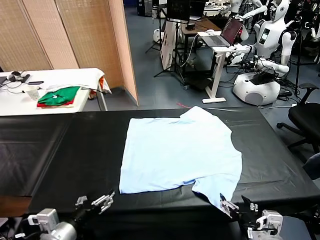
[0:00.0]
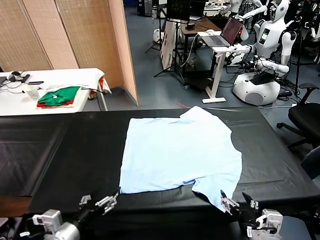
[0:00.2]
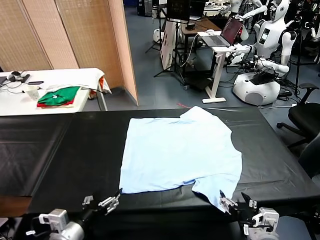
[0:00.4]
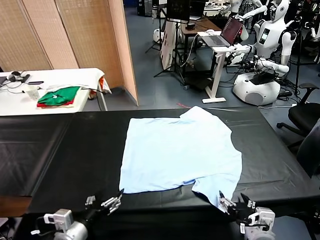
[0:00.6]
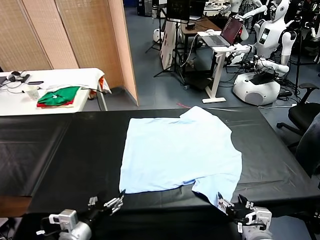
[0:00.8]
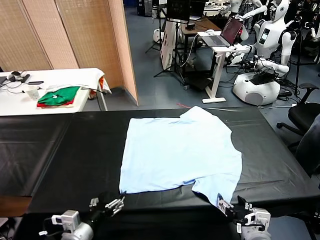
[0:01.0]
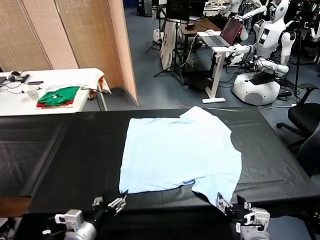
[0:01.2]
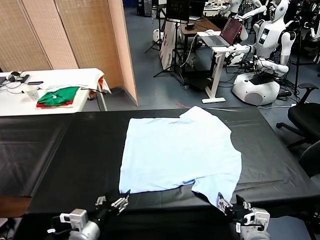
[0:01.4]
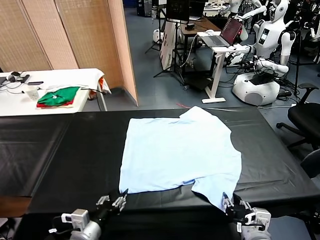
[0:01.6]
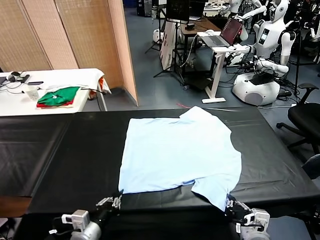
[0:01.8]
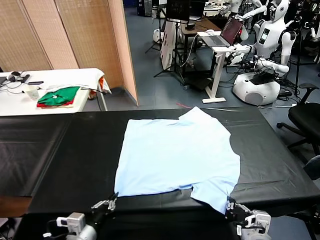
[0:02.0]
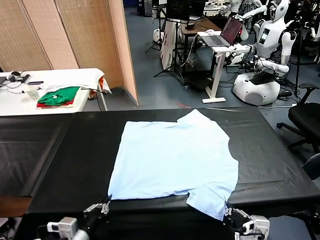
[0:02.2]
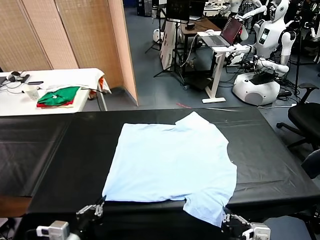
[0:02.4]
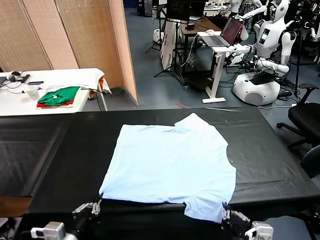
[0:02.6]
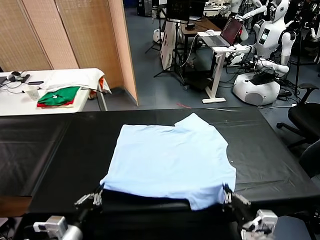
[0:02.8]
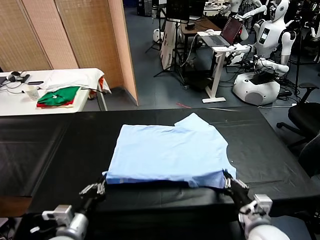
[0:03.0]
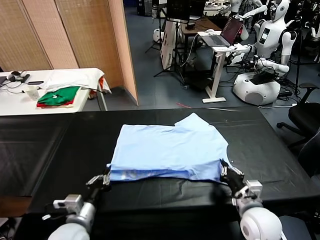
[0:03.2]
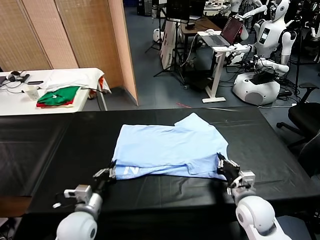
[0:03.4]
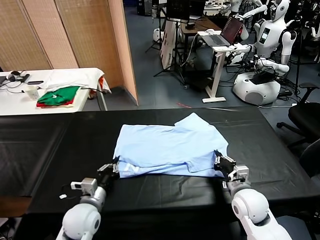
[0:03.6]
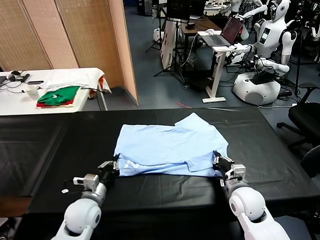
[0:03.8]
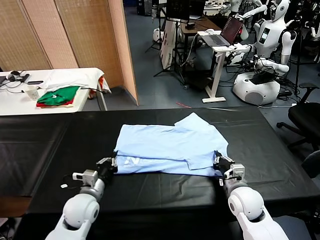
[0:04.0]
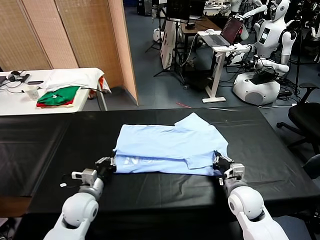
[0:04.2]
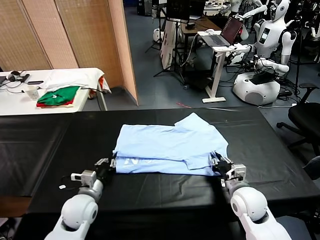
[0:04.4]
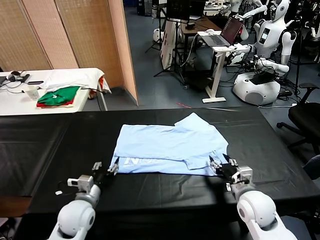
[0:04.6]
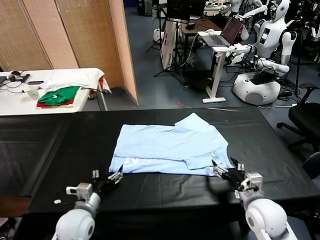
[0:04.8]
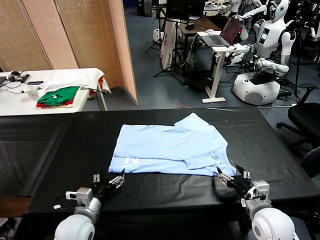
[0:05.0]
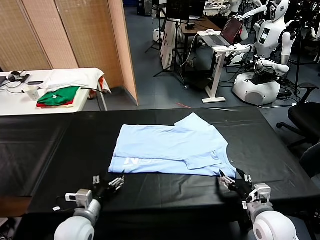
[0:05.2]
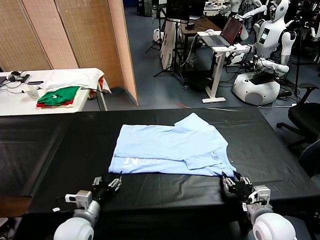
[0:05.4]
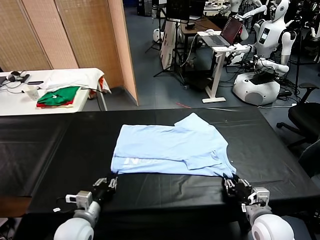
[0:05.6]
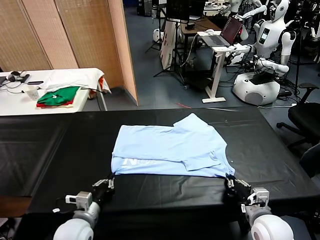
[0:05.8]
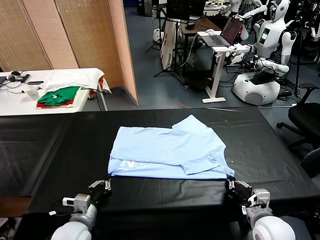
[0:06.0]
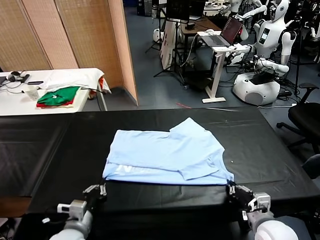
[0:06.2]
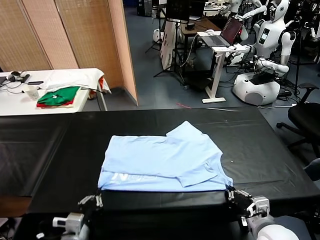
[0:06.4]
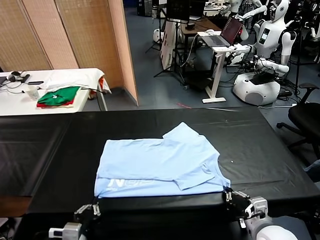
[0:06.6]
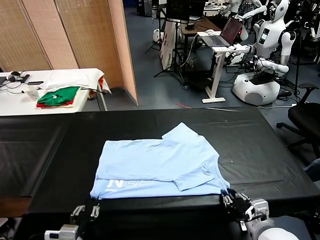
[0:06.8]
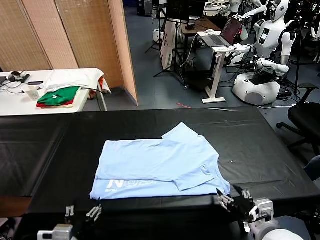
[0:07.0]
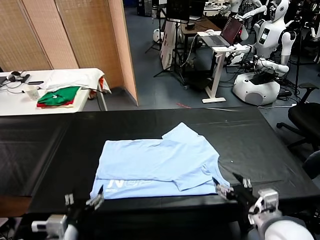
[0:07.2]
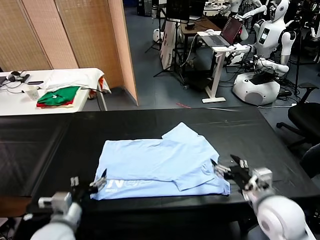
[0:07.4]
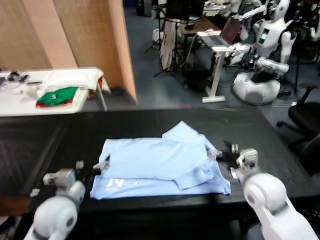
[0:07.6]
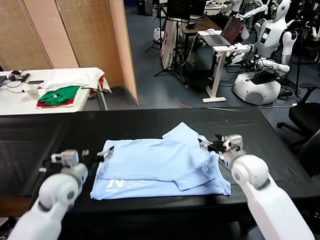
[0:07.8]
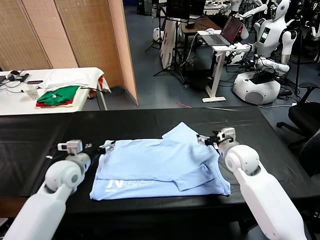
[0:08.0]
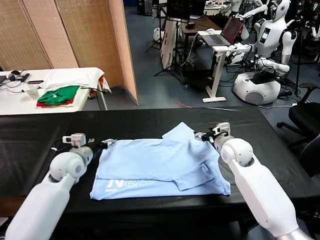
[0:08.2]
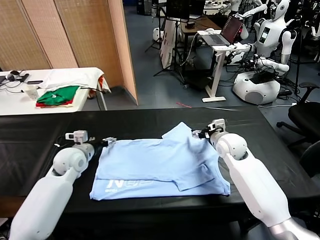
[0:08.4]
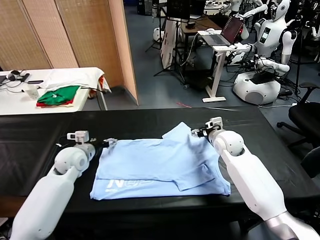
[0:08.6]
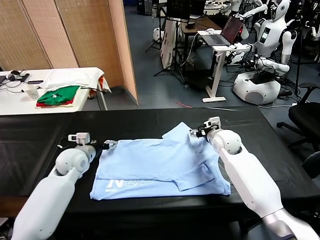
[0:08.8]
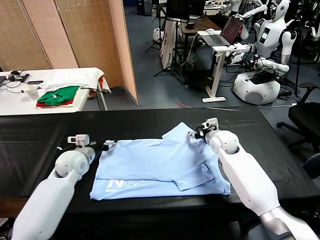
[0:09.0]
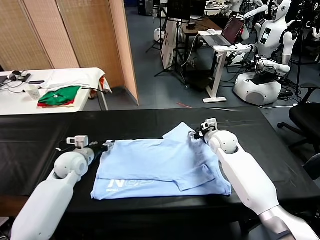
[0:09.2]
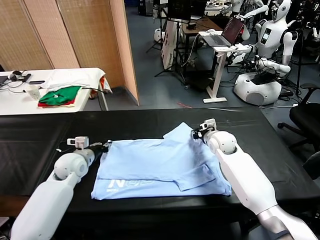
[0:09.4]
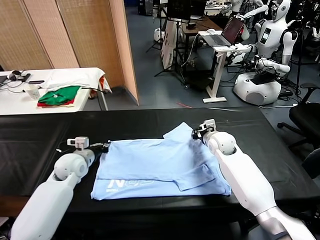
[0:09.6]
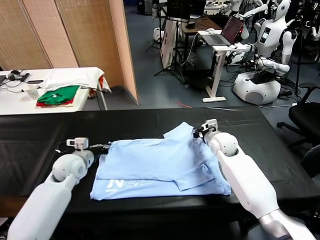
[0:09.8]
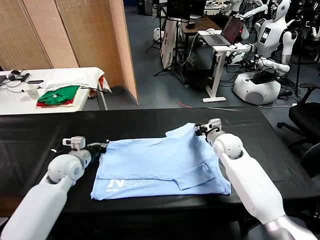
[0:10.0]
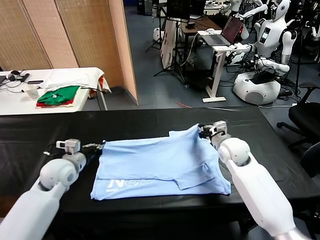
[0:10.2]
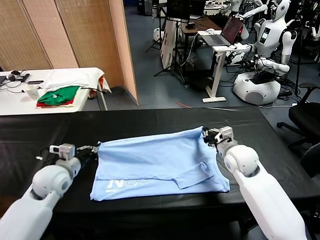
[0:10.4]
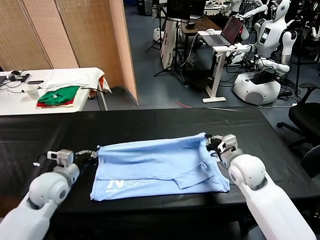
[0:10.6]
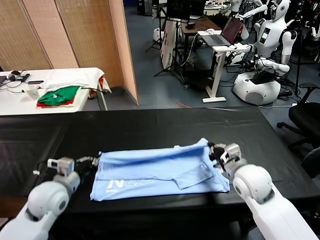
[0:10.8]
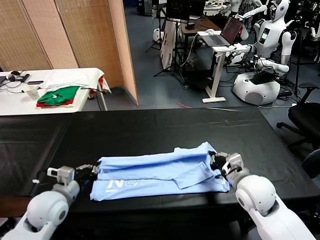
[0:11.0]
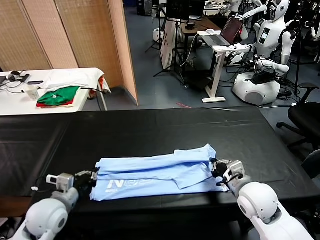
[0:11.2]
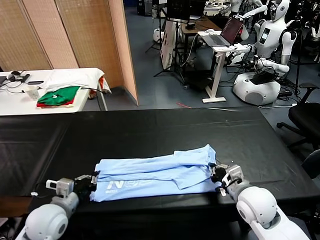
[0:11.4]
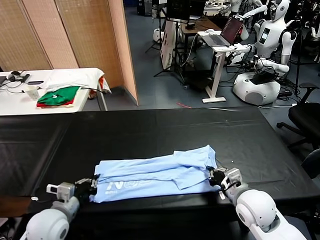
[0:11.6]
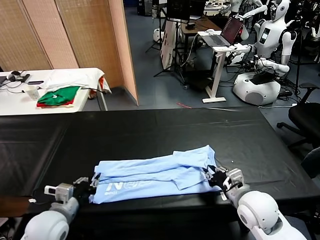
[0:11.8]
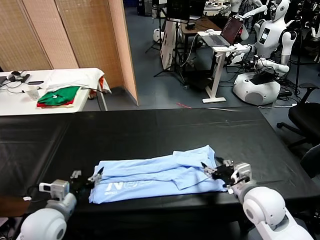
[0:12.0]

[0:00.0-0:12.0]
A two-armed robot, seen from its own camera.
Task of the whole recording: fold and organize the clothes.
Step, 0.0 to 1.8 s: use both grippers simultaneously to clamp the lower edge of the clothing fabric.
Step, 2.0 to 4.4 s: use both grippers to drag the lower edge of the fabric forward and fold it over the upper edge.
Step, 4.6 to 6.8 s: Drag the clothes downward with both gripper.
Step, 7.2 to 9.4 s: use both grippers simultaneously to clamp the upper edge of the clothing fabric.
Step, 9.6 to 11.8 s: use both grippers to drag the upper edge of the fabric backward and fold it over the lower edge.
1.6 to 3.0 s: The right gripper shifts some 10 cm forward.
3.0 to 4.4 s: The left gripper moves forward, roughly 10 cm, and opens, while the right gripper opens its fingers.
4.4 to 6.0 s: Both grippers travel together backward, approximately 10 cm. The right gripper closes; the left gripper closes its fingers.
6.0 to 7.6 s: The right gripper moves forward and upward, approximately 15 cm, and opens up. The left gripper heads upward and forward, covering some 10 cm, and opens up.
7.6 to 9.0 s: Both grippers move forward, approximately 15 cm.
9.0 to 10.4 s: The two grippers go some 10 cm backward. The right gripper closes up. Meanwhile the left gripper closes up.
10.4 to 12.0 s: The grippers both shift backward by about 10 cm. The right gripper opens its fingers. Meanwhile the left gripper opens its fingers.

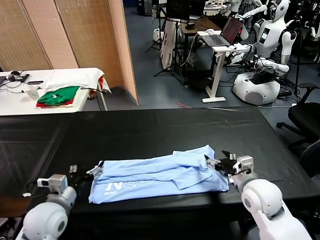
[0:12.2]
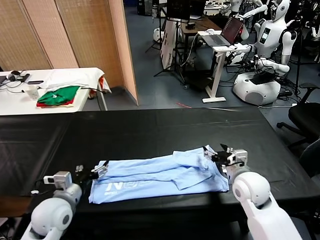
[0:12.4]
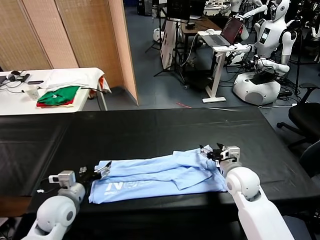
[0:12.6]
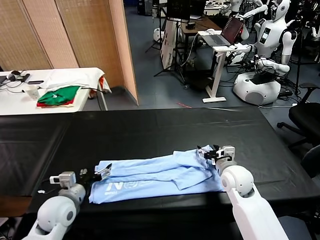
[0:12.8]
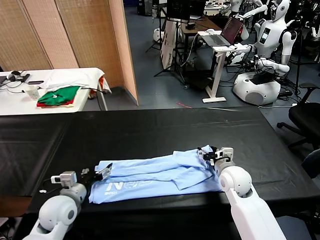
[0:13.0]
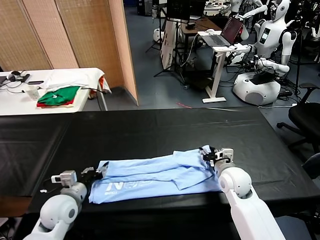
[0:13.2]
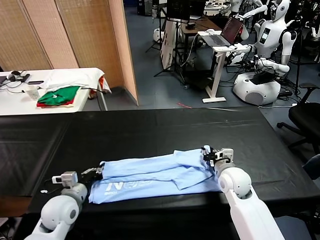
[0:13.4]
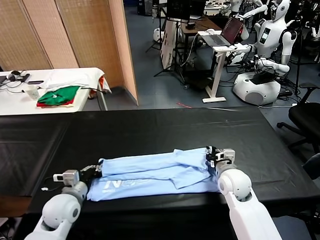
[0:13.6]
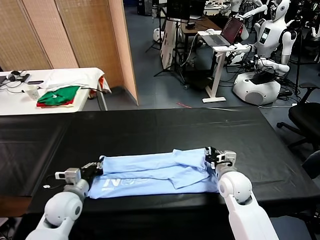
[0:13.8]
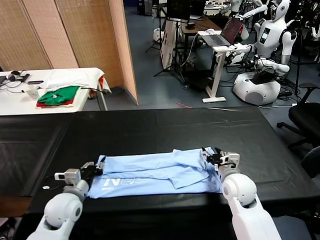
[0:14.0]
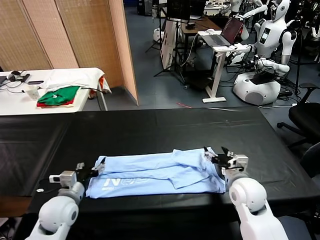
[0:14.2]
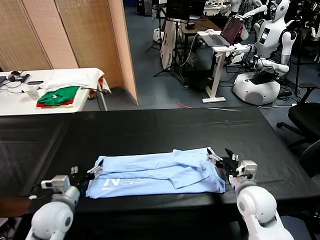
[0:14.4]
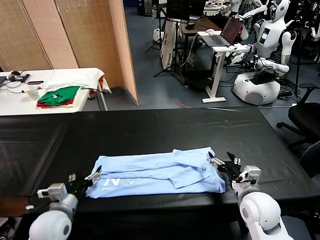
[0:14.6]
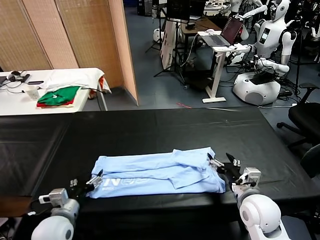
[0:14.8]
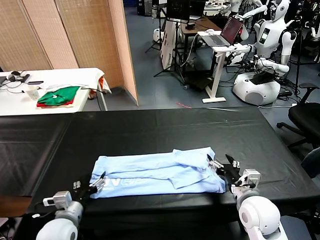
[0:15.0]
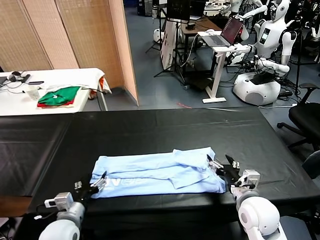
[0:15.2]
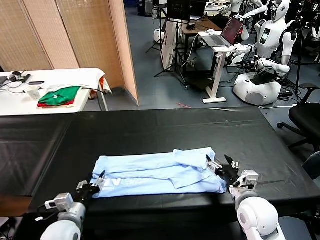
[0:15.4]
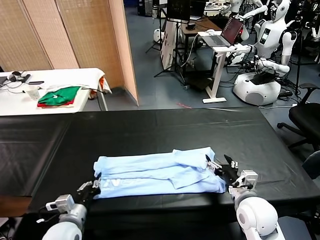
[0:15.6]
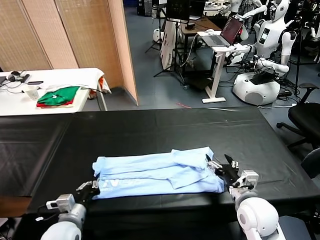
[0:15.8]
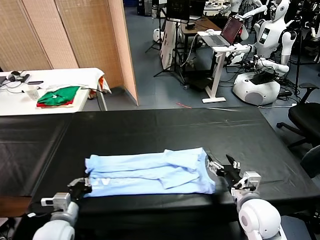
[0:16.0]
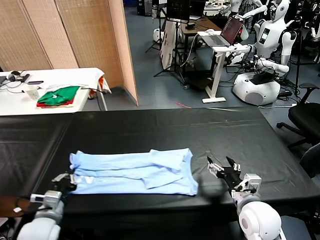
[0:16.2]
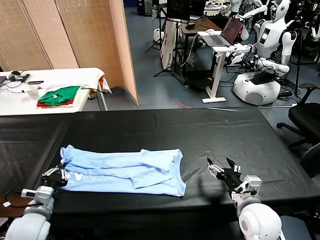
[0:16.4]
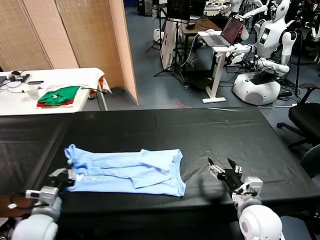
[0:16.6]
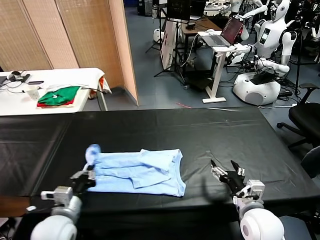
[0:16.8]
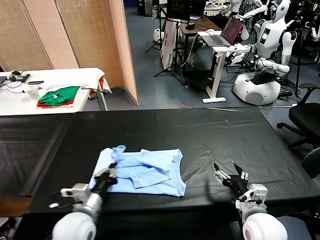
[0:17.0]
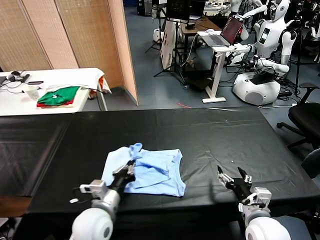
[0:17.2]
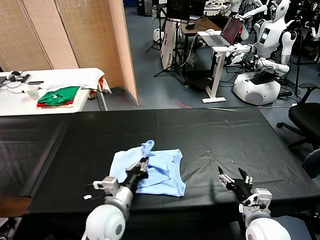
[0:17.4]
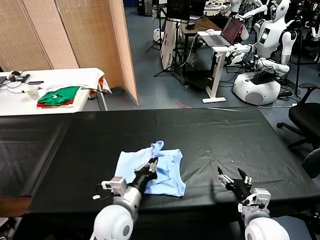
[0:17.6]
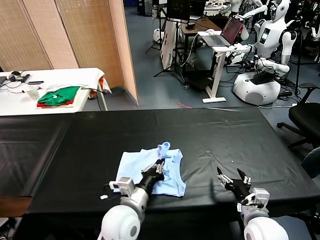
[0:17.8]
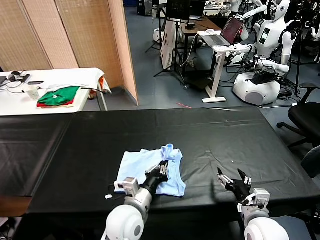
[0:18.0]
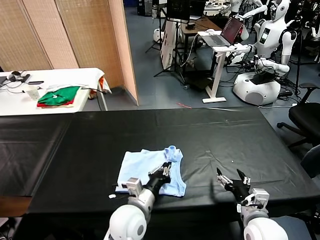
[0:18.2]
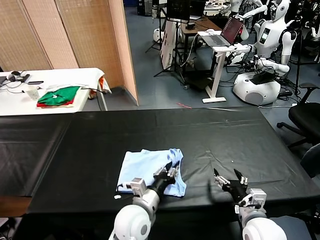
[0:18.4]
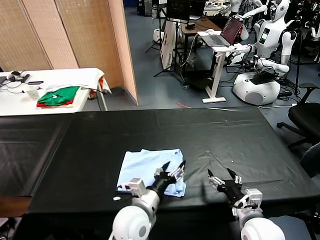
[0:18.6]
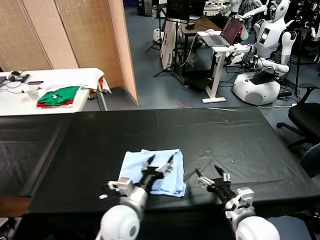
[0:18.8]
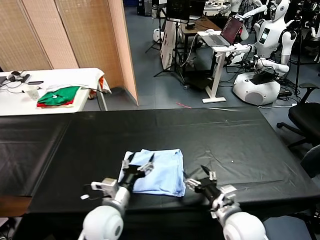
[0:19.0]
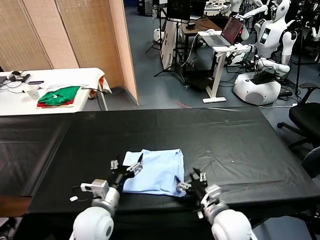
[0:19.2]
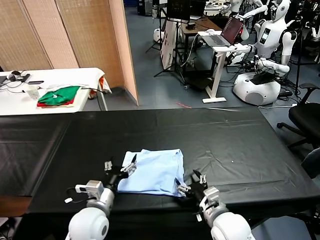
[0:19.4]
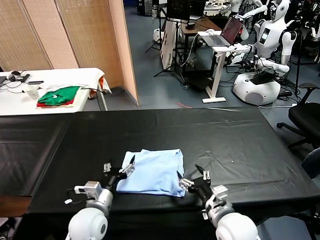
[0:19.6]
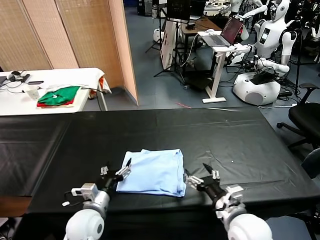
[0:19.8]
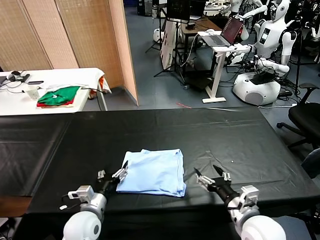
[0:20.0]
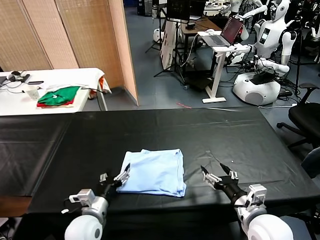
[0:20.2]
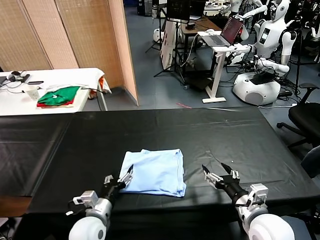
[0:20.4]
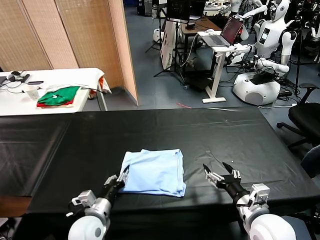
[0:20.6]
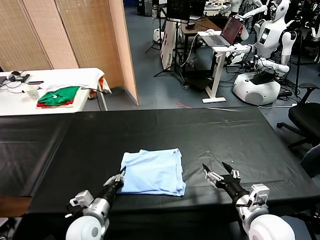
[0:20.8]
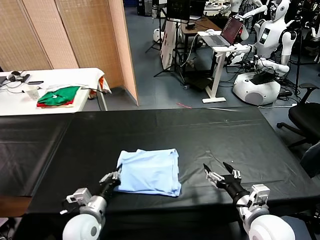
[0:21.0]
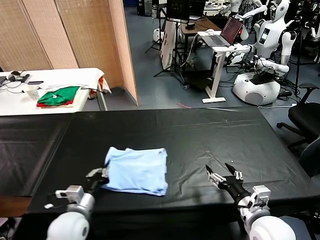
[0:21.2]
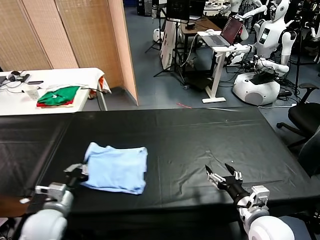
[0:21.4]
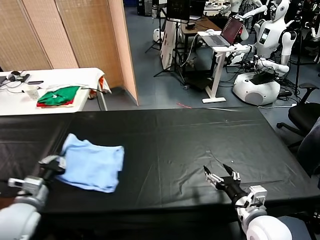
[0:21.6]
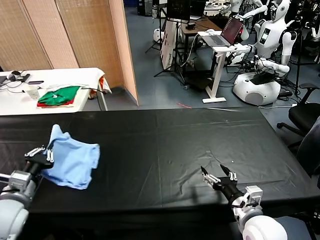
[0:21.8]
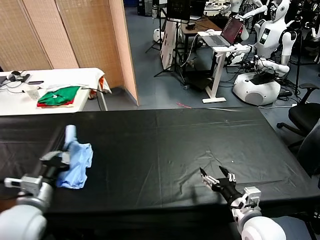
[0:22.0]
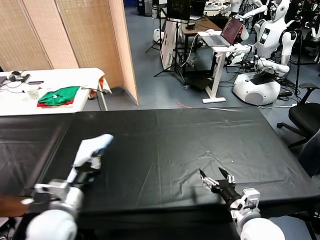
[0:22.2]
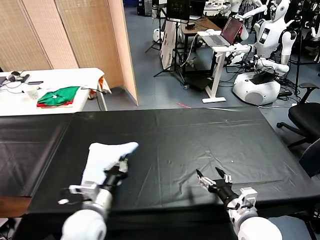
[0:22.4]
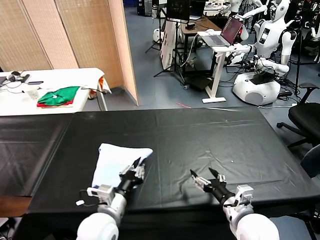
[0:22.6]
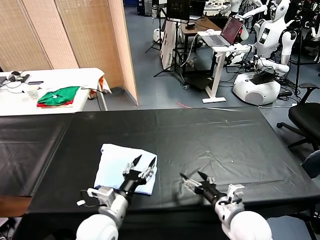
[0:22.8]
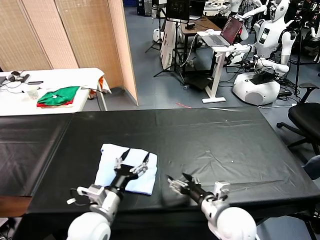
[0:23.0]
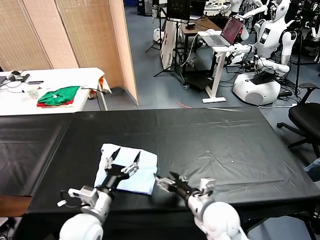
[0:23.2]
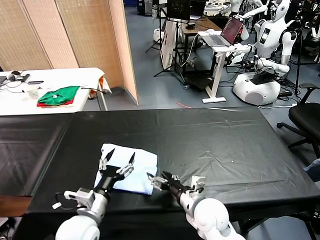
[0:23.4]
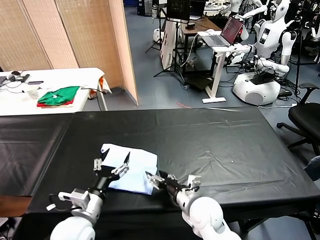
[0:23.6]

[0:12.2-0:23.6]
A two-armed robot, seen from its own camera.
Task of the whole recording: fold and organize the clothes.
Step, 12.2 to 15.6 s: use the left gripper to clamp the left edge of the fabric.
Step, 16.0 to 18.4 s: use the left gripper to drag the left edge of the fabric to the left and folds it over the right edge.
Step, 18.6 to 22.6 s: Flip the folded clothes over with left gripper.
12.2 to 13.6 s: Both grippers travel together downward, about 5 cm. The right gripper closes, while the left gripper closes up.
13.6 to 15.0 s: Both grippers move backward, approximately 10 cm. The right gripper opens up, while the left gripper opens.
15.0 to 16.4 s: The left gripper shifts some 5 cm to the left, and closes.
16.4 to 17.8 s: The left gripper goes approximately 25 cm to the right.
17.8 to 19.4 s: The two grippers go about 10 cm to the left. The left gripper opens its fingers.
19.4 to 20.8 s: The left gripper heads downward, covering some 5 cm, and closes its fingers, while the right gripper moves to the right, roughly 10 cm.
20.8 to 22.2 s: The left gripper moves upward, roughly 15 cm, and reaches about 15 cm to the left, then returns.
22.2 to 23.6 s: The left gripper goes about 5 cm to the right, and opens up. Meanwhile the right gripper shifts roughly 15 cm to the left and forward.
